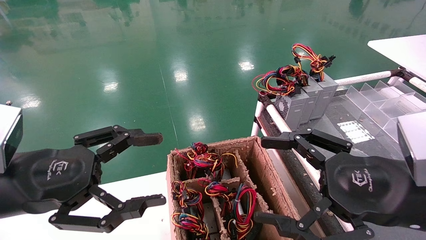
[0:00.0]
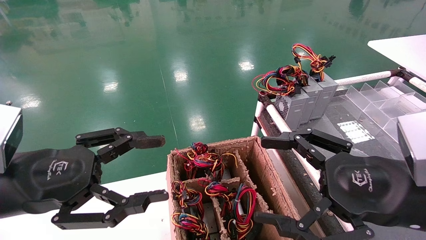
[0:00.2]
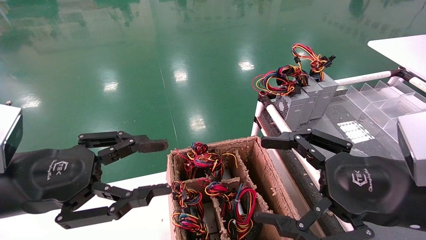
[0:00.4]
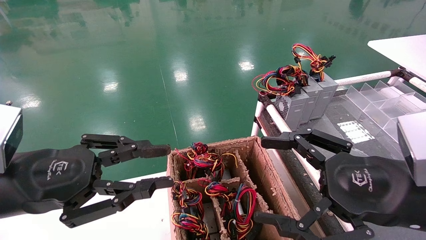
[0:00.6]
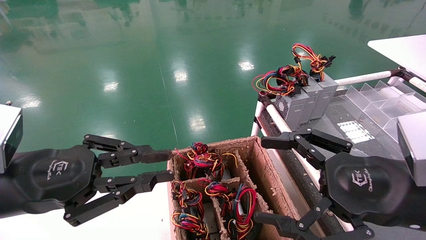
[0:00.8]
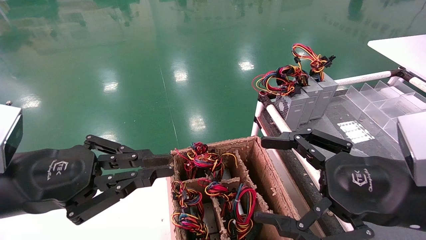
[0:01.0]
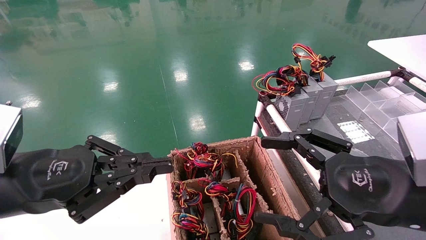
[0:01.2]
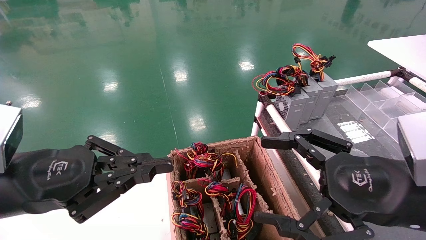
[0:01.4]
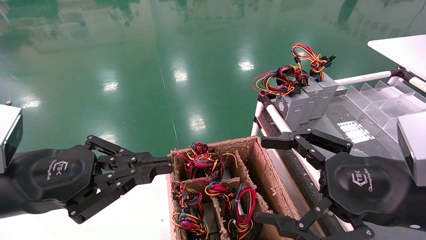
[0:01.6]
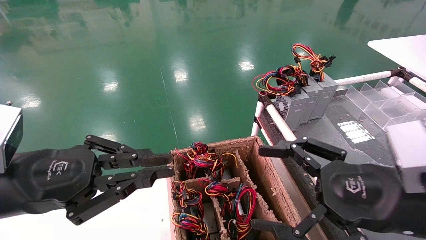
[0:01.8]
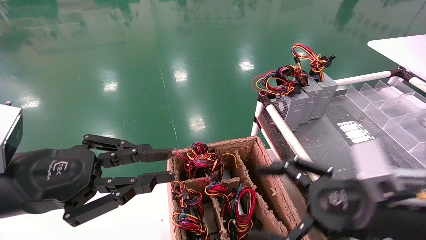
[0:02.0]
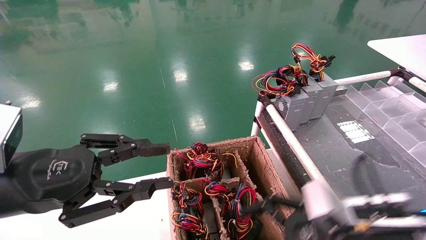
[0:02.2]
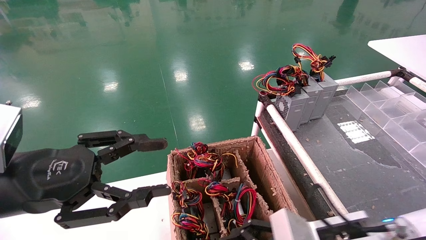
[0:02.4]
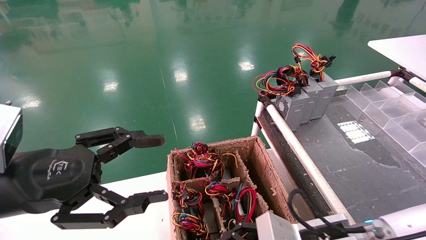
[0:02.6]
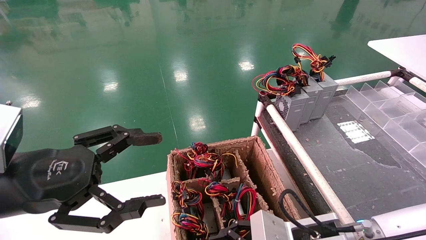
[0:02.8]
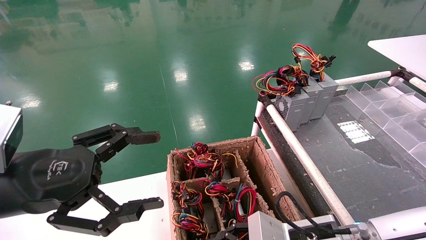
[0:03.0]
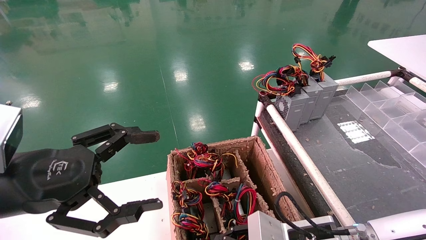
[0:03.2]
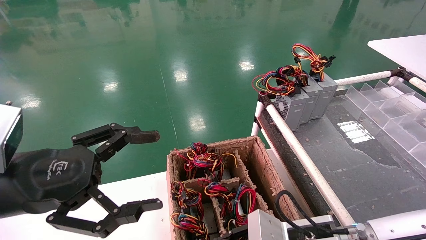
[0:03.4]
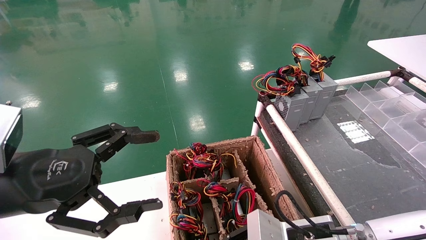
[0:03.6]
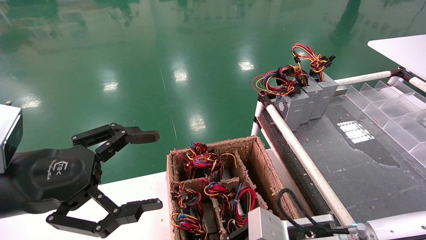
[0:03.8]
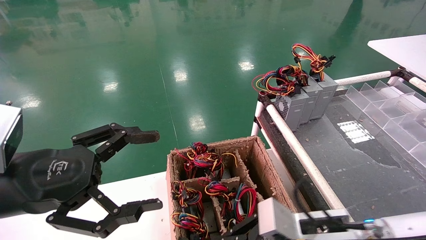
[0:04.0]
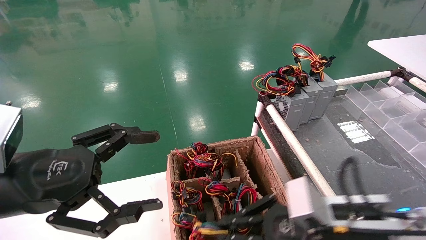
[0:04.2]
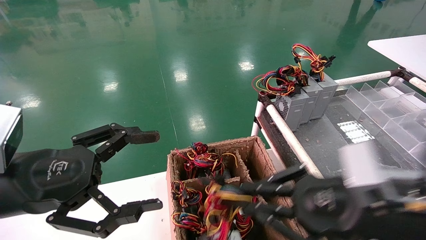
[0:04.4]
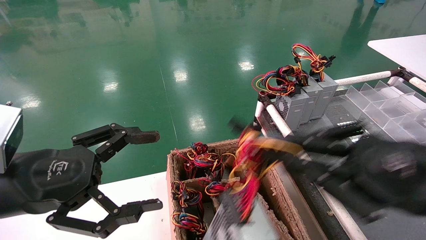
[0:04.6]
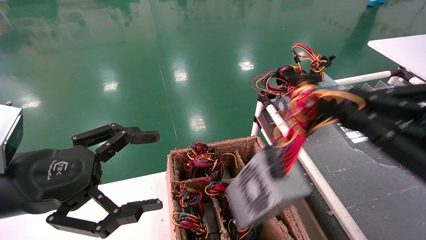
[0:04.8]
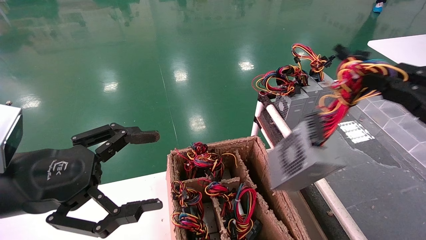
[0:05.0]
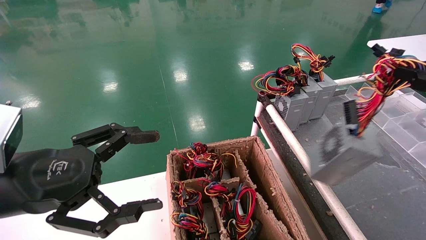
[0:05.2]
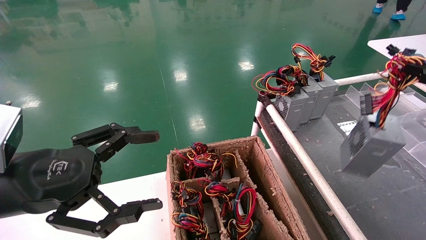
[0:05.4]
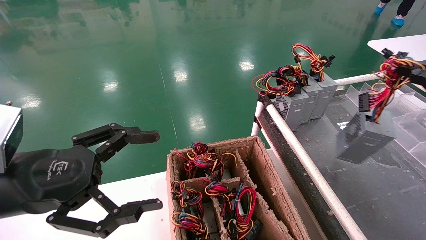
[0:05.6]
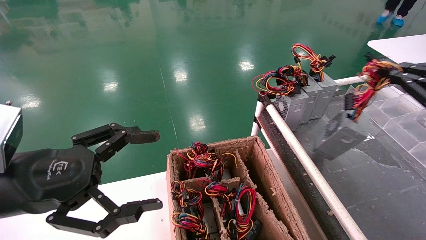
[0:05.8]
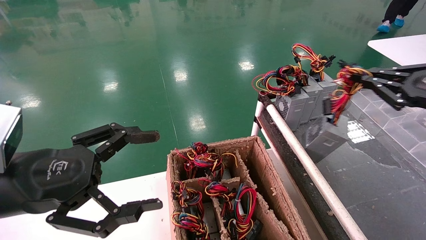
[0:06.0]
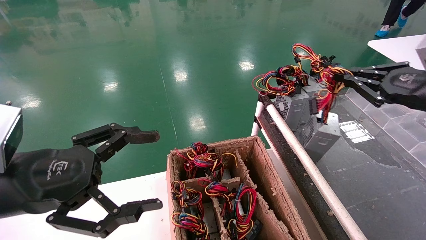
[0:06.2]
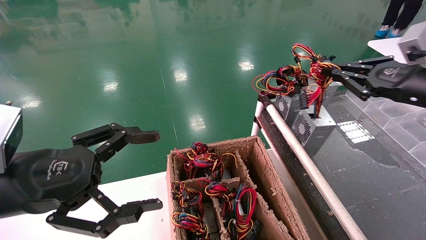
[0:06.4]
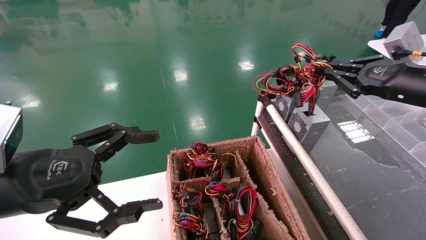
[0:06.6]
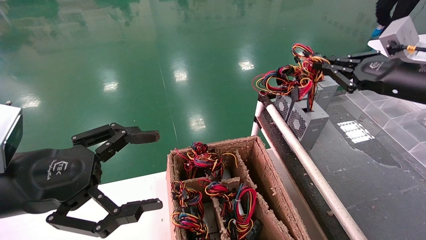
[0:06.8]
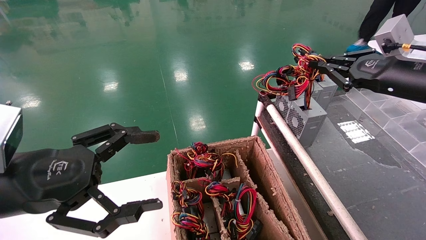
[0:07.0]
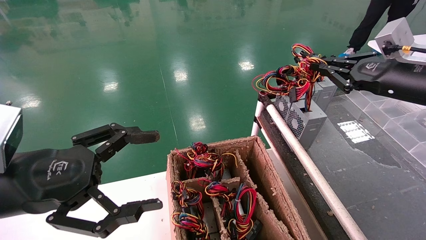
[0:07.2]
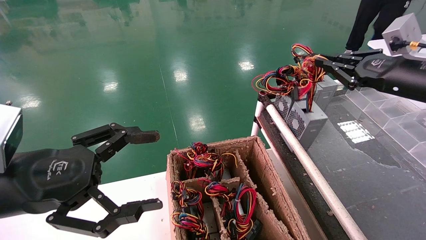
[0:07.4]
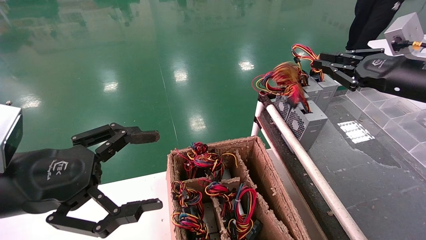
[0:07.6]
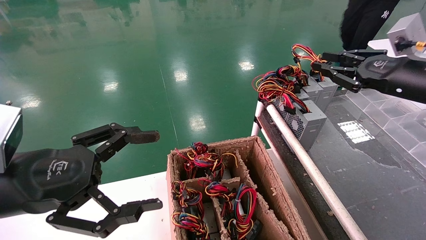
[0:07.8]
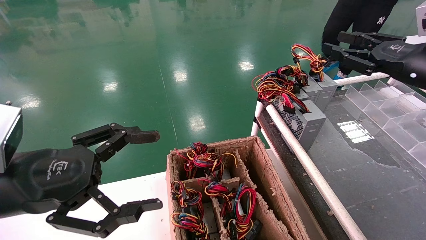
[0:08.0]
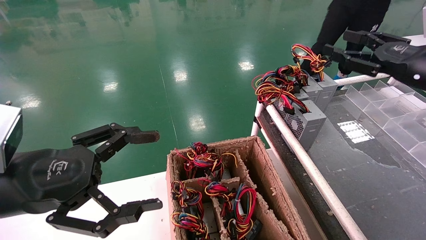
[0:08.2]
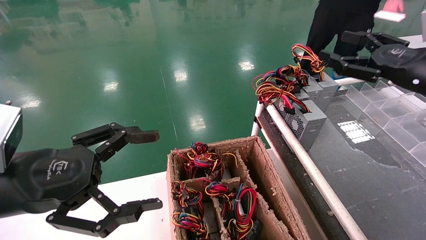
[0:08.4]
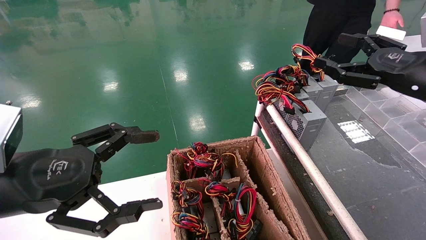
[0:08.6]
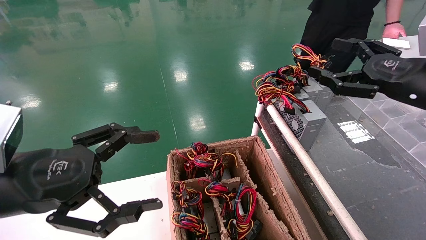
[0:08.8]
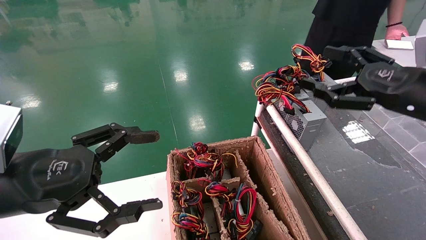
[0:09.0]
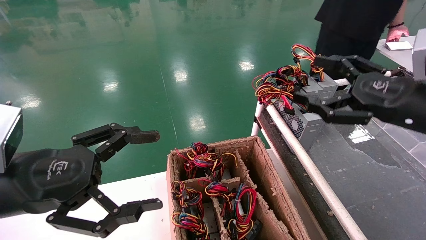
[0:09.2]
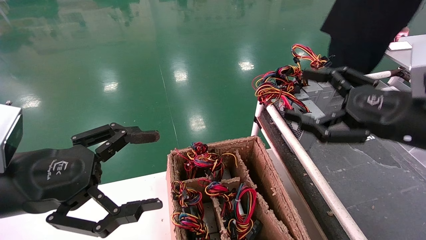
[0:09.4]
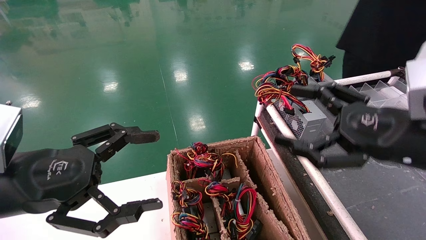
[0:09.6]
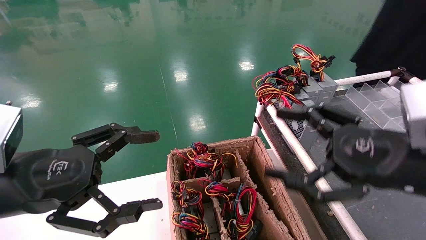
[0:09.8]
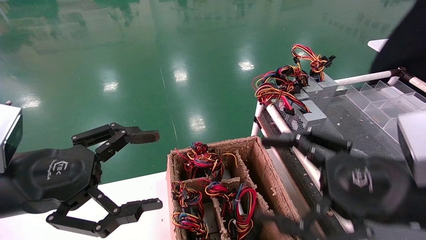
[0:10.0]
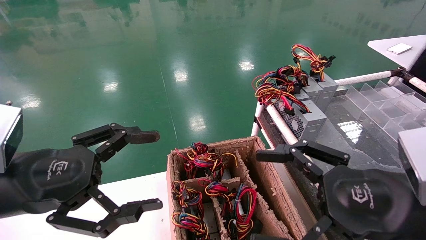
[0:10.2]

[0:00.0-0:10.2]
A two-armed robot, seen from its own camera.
Step, 0:01.4 to 0:03.8: Grab and lift the power supply from the large box.
Step, 0:04.0 to 0:07.6: Place the power supply on the operating table.
0:00.0 to 0:01.4: The left gripper closes up.
0:01.4 to 0:03.0: The right gripper moves downward, to the left and forward, roughly 15 cm, while the left gripper opens up.
0:03.0 to 0:04.4: The right gripper is displaced upward and to the right by roughly 15 cm, and closes up.
0:04.4 to 0:05.8: The right gripper travels to the right and upward by approximately 20 cm.
0:05.8 to 0:07.2: The right gripper travels forward and to the left by approximately 10 cm.
0:07.2 to 0:08.8: The right gripper moves some 5 cm, and opens.
0:08.8 to 0:10.2: The right gripper moves backward, to the left and downward, some 20 cm.

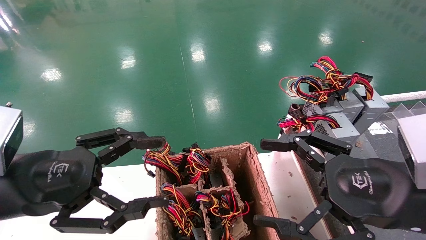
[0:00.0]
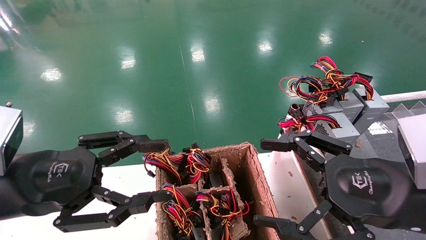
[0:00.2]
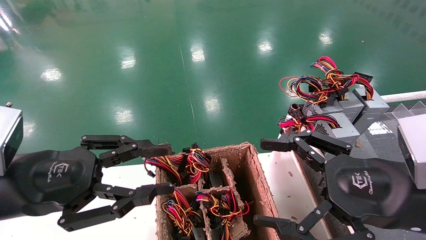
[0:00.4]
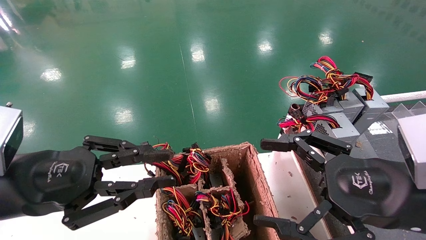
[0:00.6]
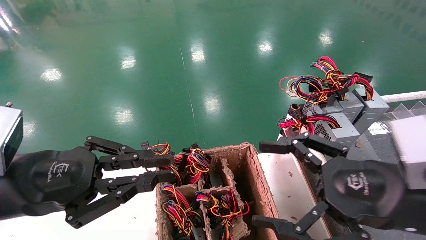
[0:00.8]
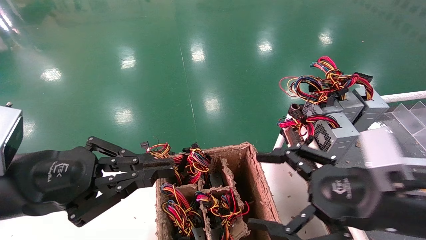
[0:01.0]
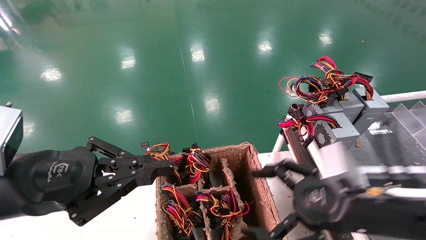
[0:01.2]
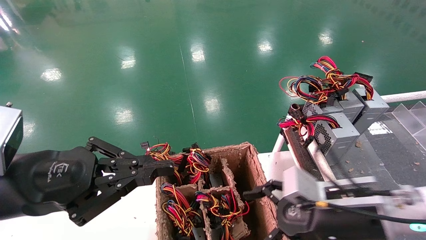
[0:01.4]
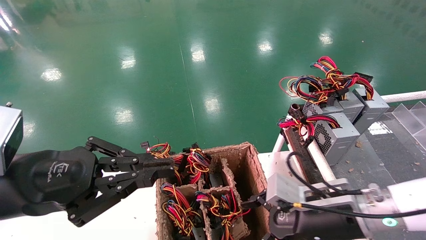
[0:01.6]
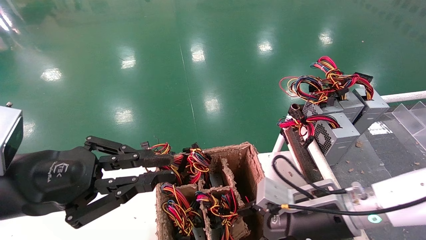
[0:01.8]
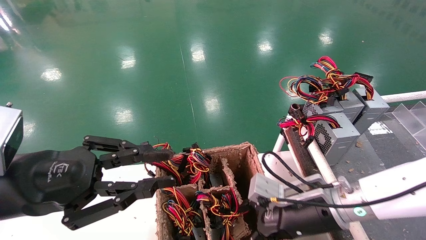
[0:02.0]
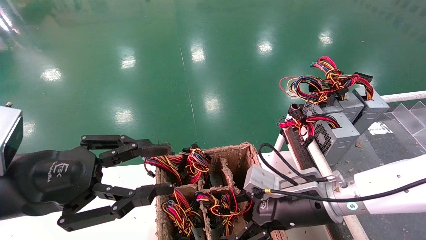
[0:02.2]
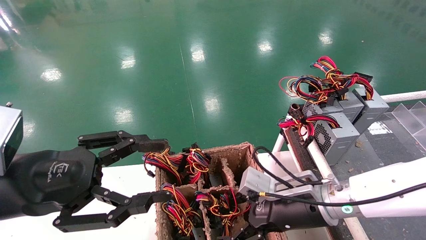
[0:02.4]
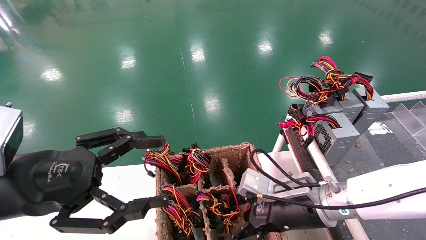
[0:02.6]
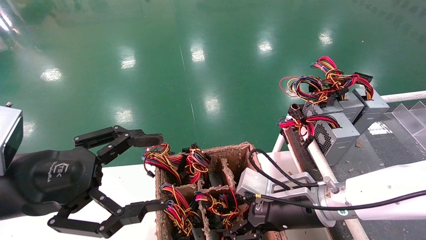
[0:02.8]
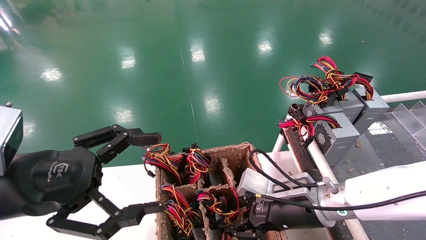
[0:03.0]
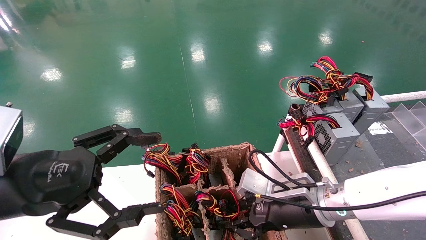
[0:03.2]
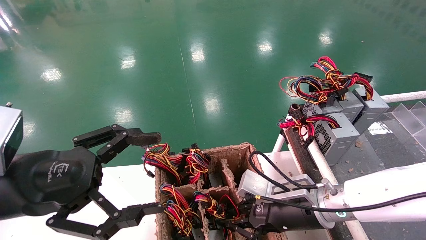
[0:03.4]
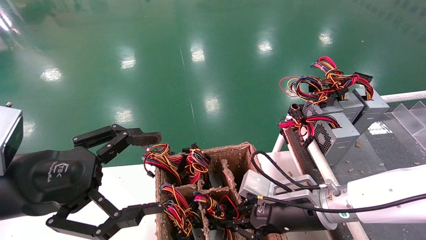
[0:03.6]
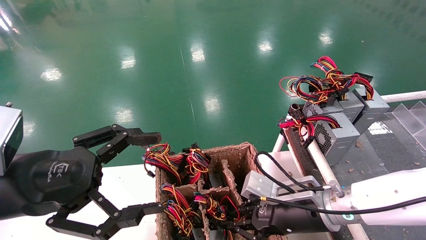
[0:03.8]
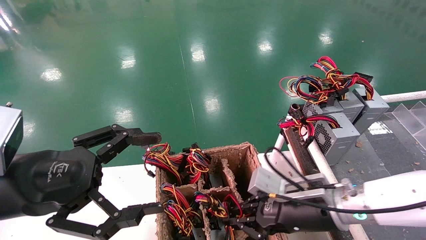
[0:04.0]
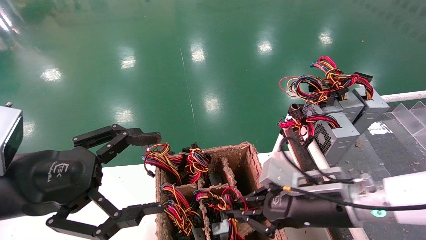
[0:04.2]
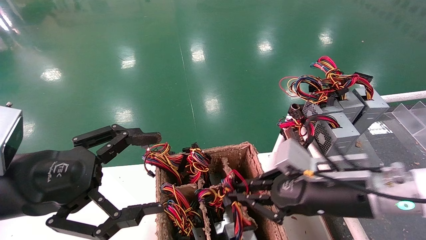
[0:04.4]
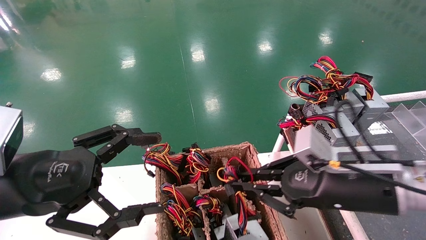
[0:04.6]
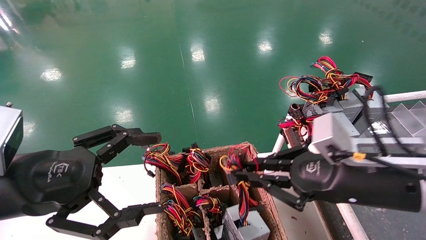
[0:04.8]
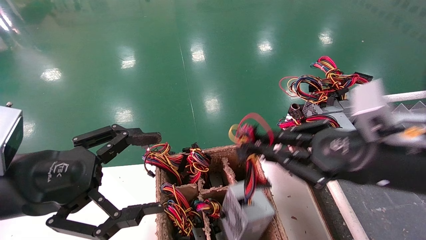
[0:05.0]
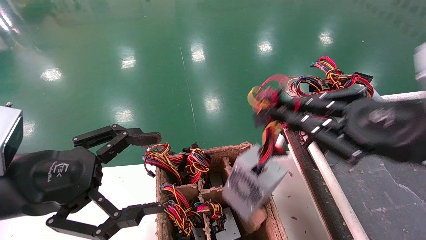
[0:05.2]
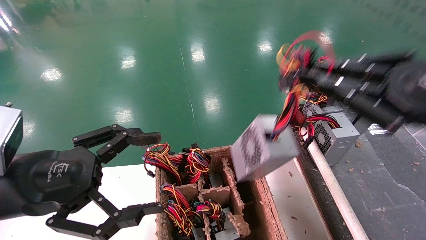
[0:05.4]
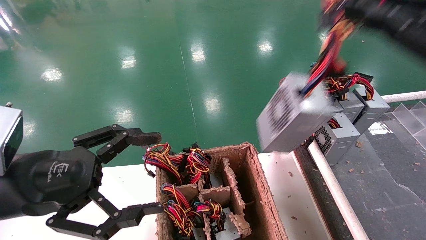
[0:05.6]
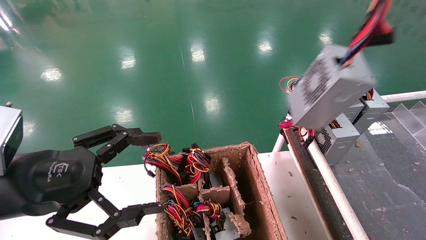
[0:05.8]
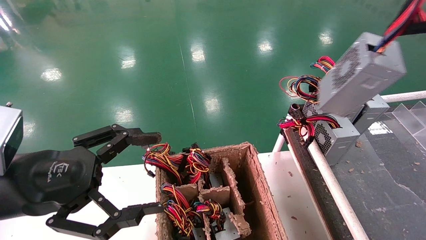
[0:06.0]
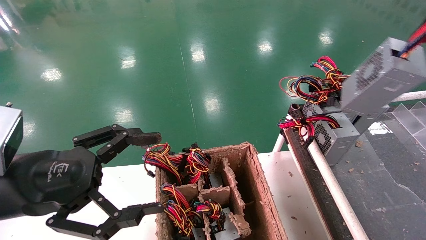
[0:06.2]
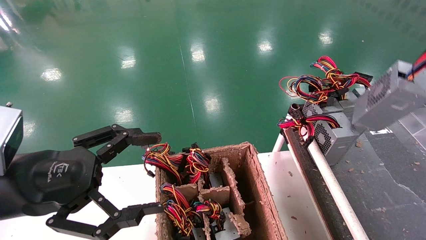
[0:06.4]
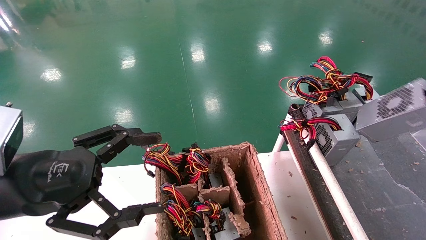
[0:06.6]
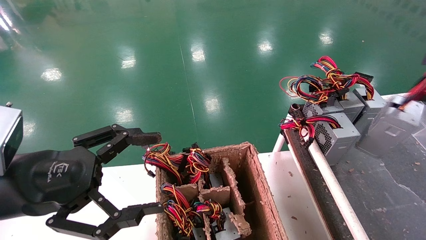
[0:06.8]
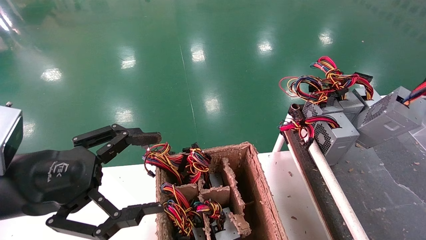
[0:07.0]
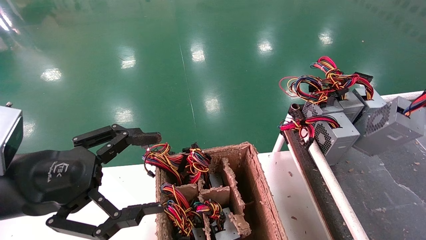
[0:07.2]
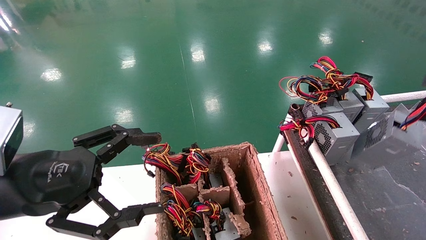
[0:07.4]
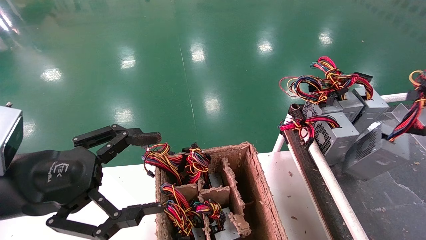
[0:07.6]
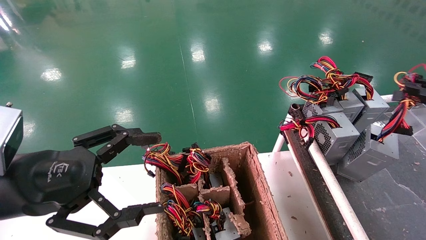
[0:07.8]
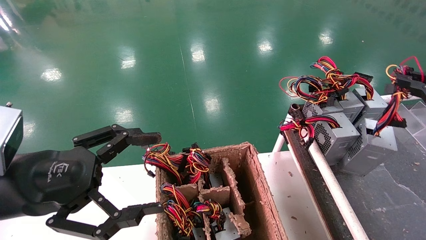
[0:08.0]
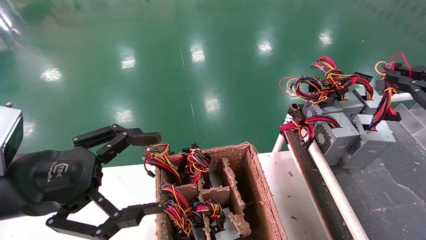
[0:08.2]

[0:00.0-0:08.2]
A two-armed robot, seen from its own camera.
Step, 0:01.2 to 0:03.4: Grab and lift the power supply from the large box.
0:00.0 to 0:01.6: The left gripper closes its fingers. Meanwhile the right gripper heads downward, forward and to the left, covering about 15 cm.
0:01.6 to 0:03.2: The left gripper opens, while the right gripper moves about 5 cm, and closes.
0:03.2 to 0:05.0: The right gripper goes approximately 20 cm upward, to the right and backward.
0:05.0 to 0:06.6: The right gripper travels to the right and upward by about 20 cm.
0:06.6 to 0:08.2: The right gripper moves downward, approximately 5 cm.
